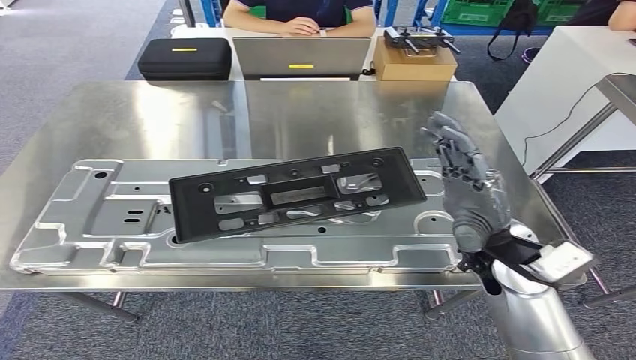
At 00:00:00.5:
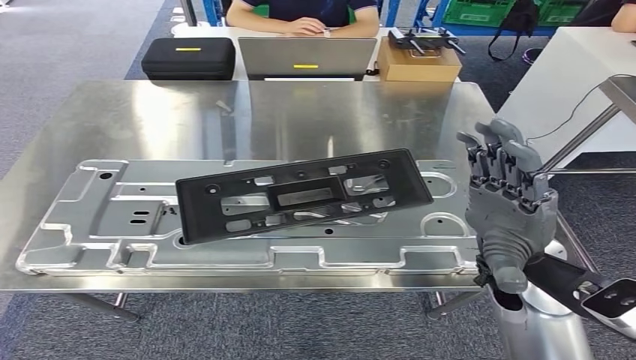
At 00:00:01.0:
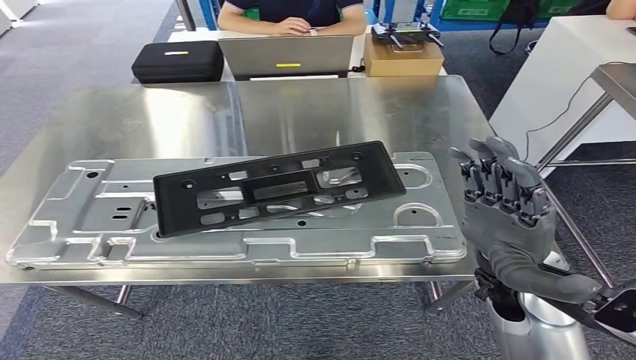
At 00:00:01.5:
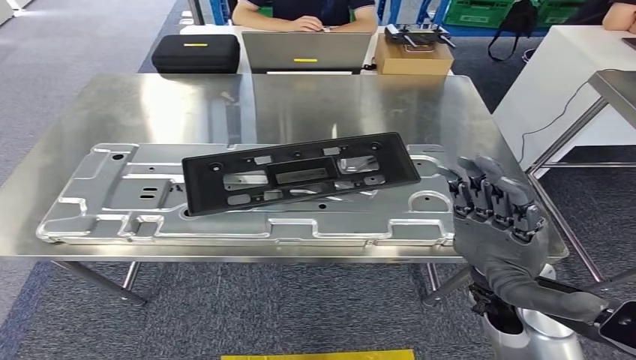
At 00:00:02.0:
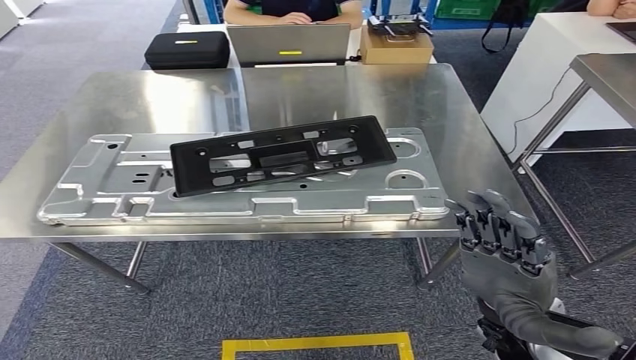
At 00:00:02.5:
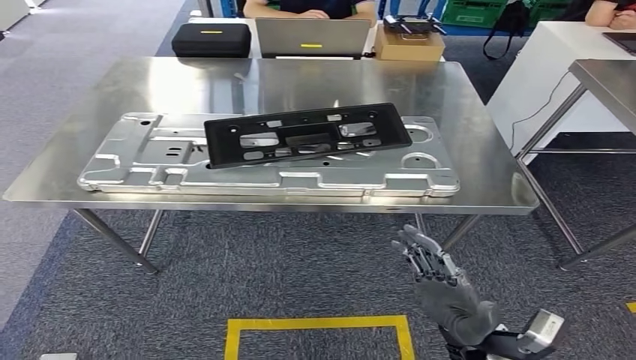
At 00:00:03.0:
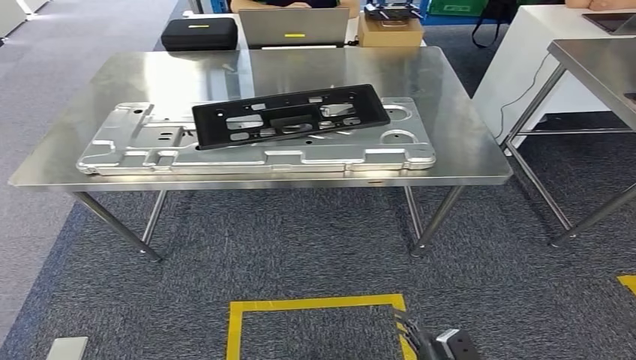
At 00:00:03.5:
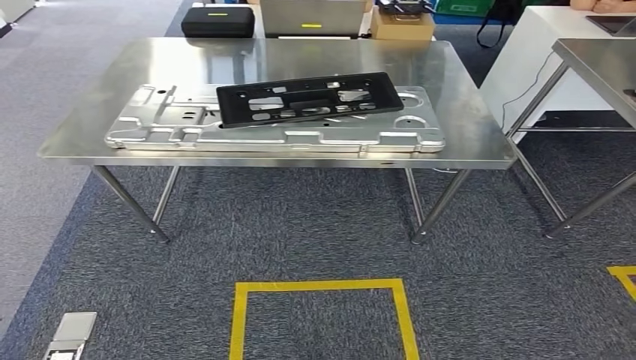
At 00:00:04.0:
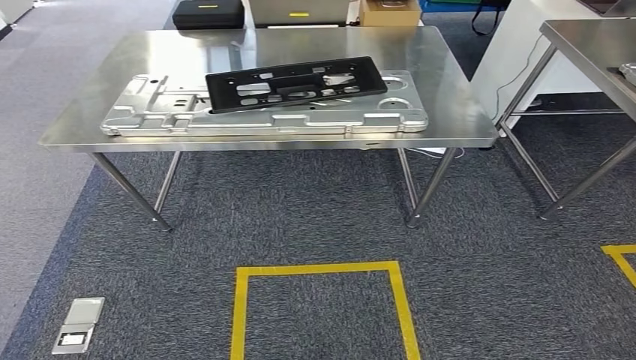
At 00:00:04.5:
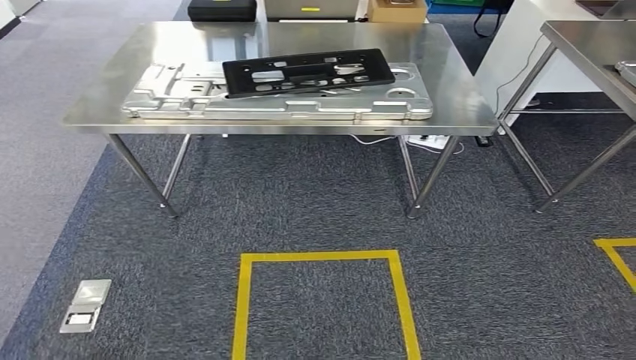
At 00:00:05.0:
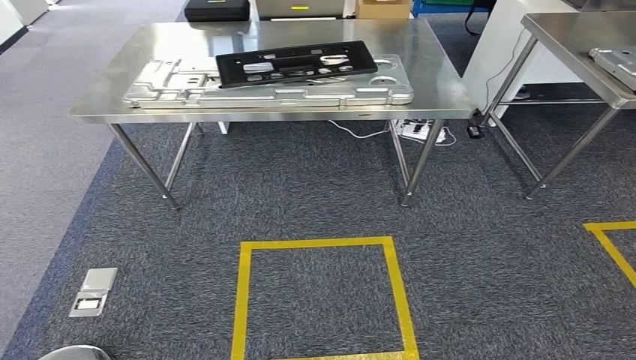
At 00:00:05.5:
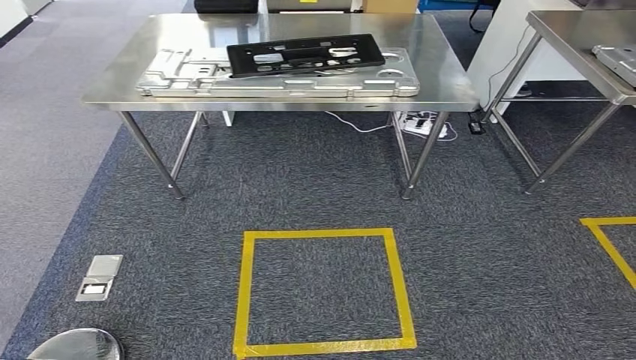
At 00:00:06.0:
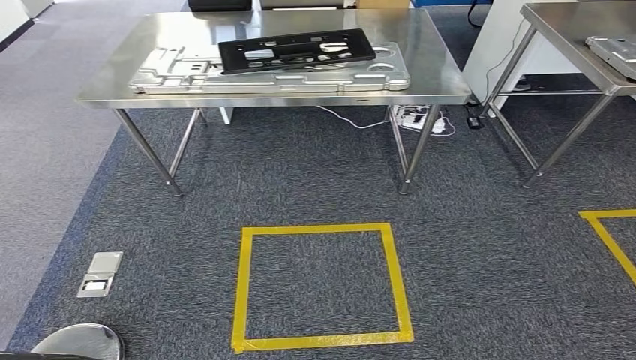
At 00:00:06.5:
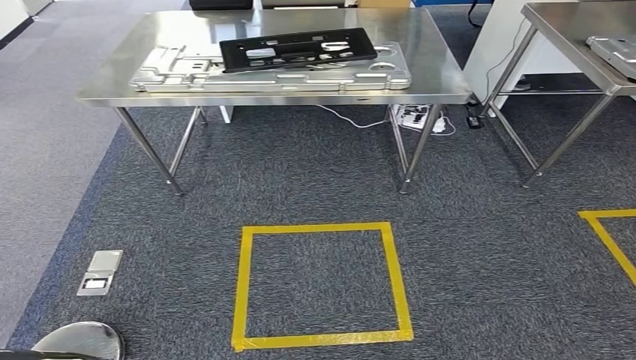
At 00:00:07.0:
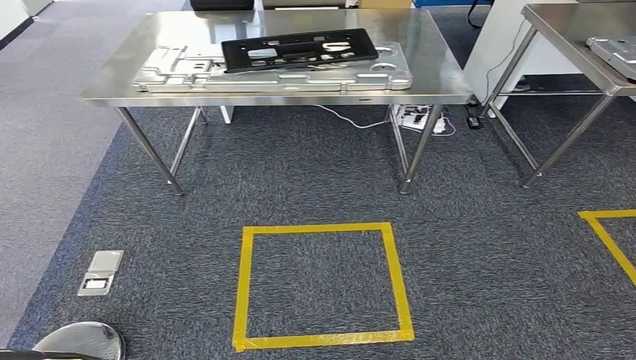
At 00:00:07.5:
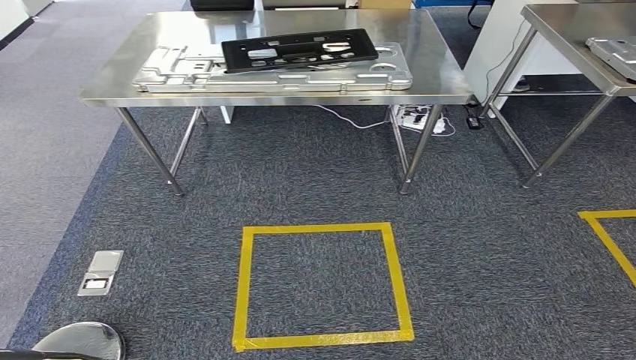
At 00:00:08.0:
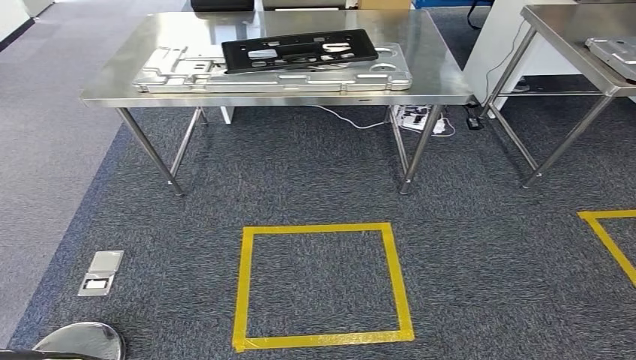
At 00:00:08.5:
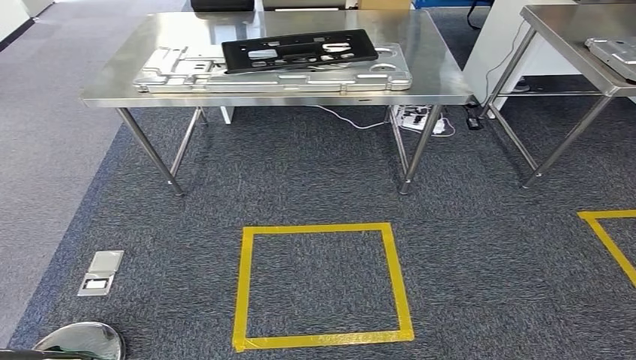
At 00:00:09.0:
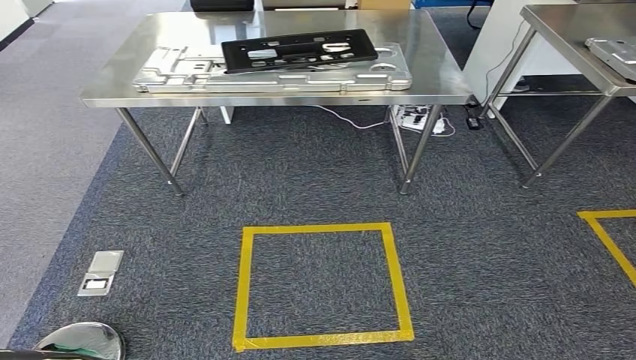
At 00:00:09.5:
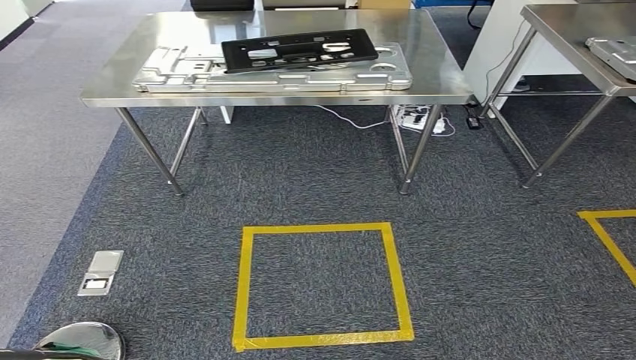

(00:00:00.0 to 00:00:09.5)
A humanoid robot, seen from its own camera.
Step, 00:00:00.5 - 00:00:09.5: Return to the initial position at the workbench.

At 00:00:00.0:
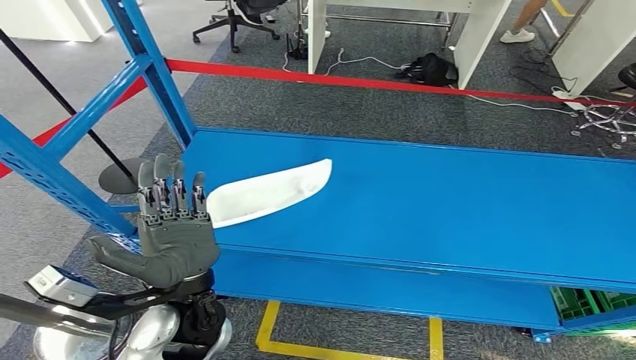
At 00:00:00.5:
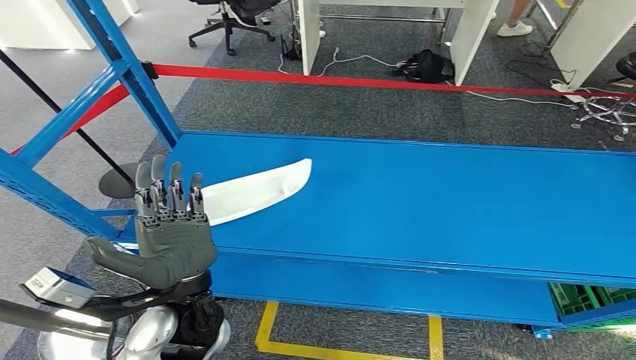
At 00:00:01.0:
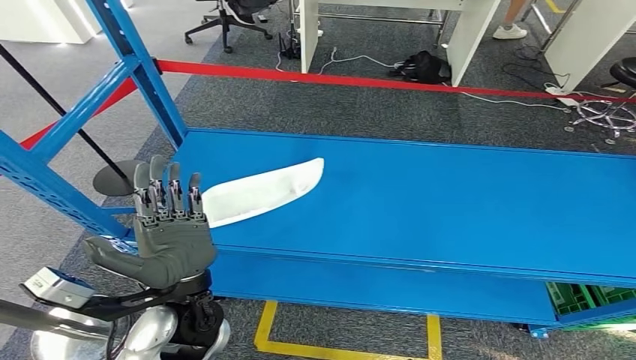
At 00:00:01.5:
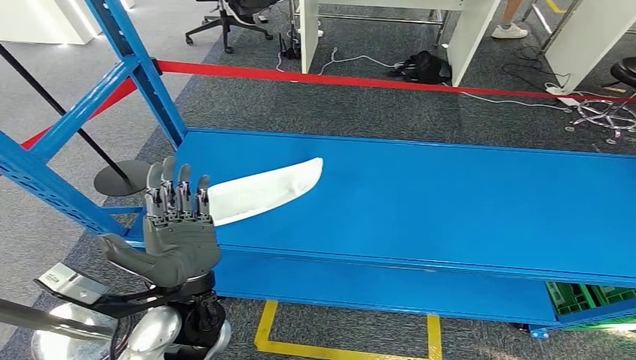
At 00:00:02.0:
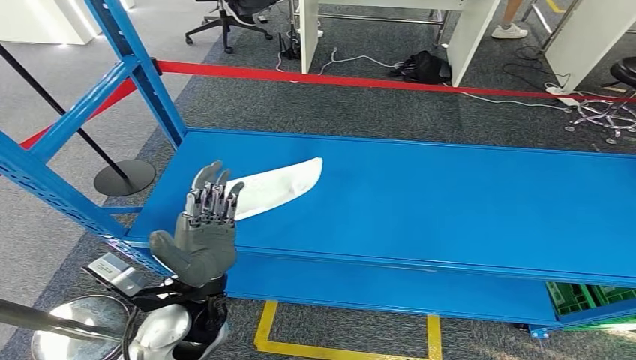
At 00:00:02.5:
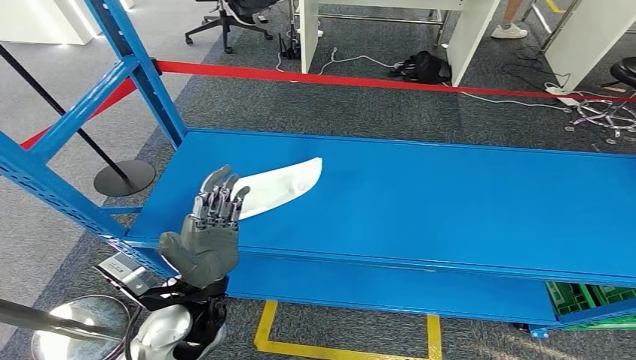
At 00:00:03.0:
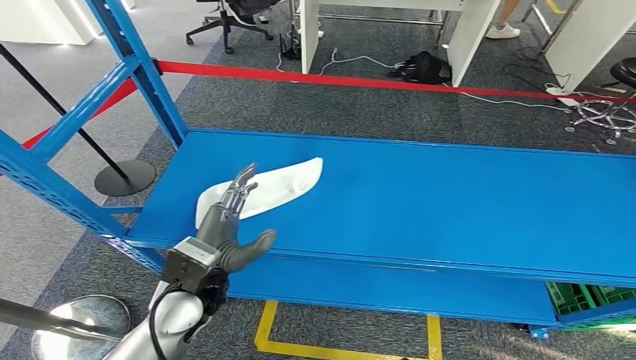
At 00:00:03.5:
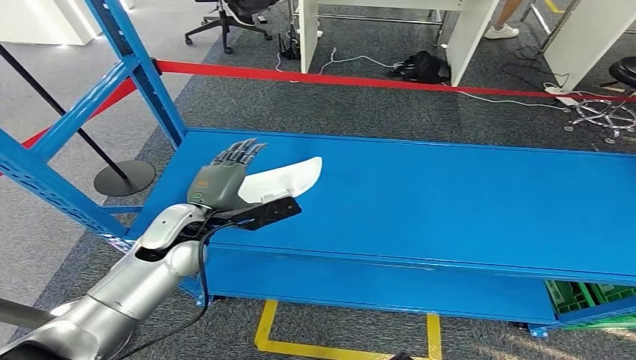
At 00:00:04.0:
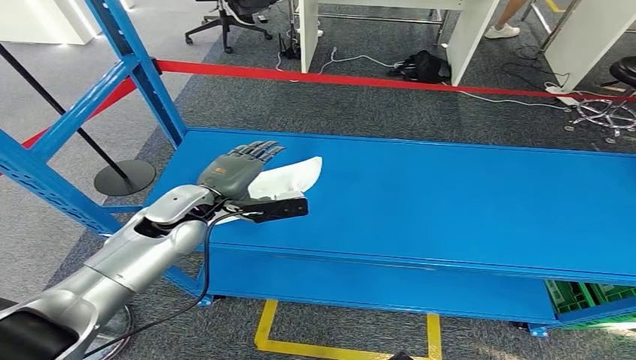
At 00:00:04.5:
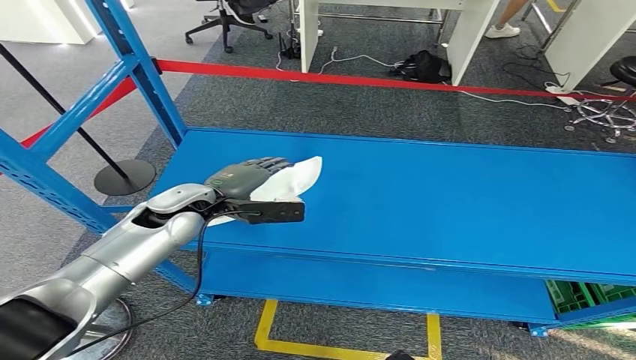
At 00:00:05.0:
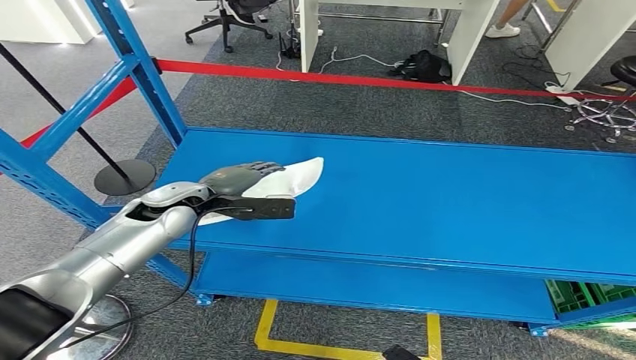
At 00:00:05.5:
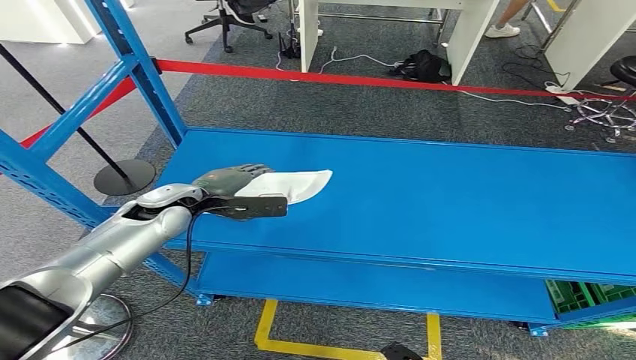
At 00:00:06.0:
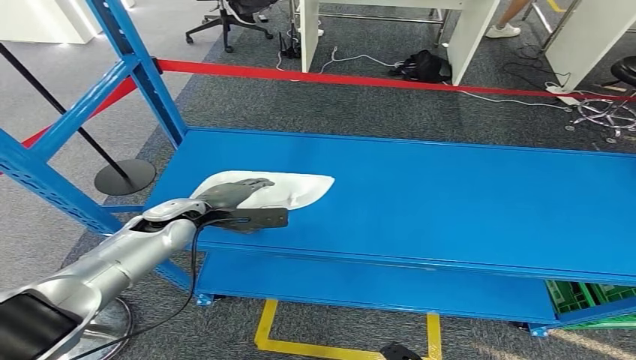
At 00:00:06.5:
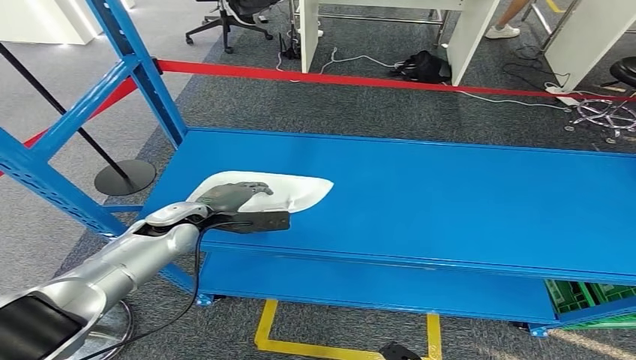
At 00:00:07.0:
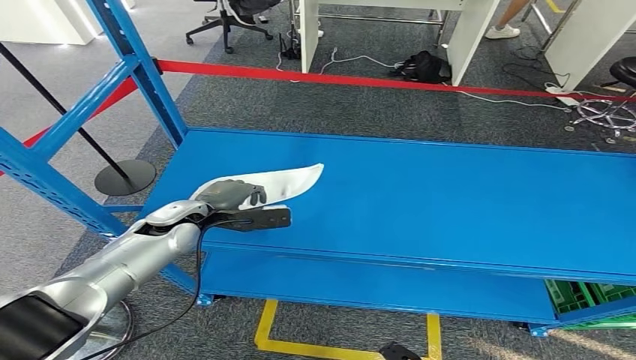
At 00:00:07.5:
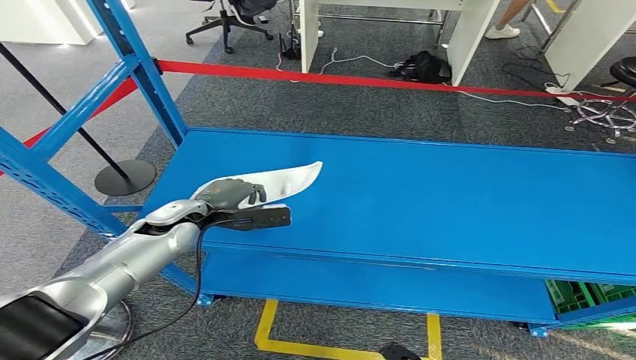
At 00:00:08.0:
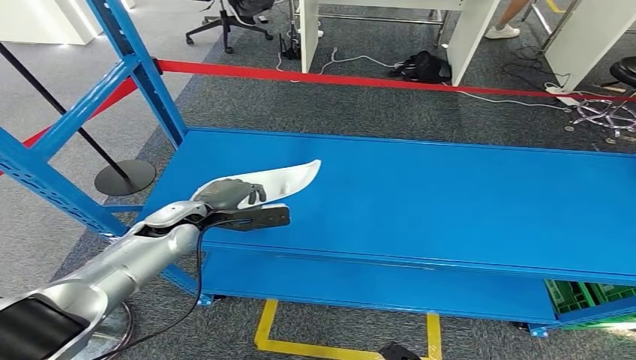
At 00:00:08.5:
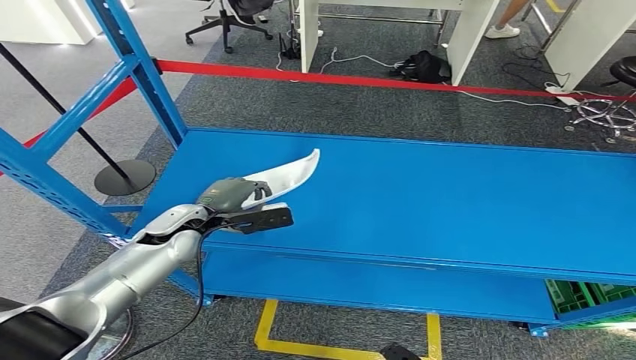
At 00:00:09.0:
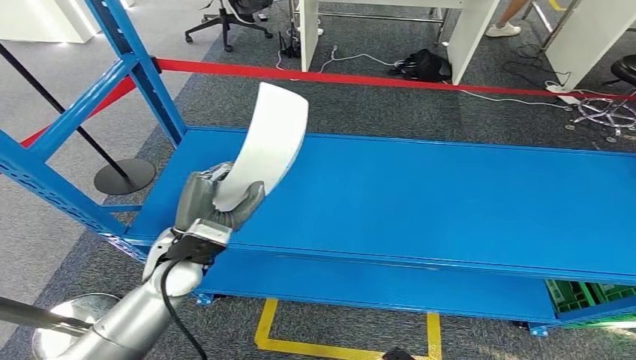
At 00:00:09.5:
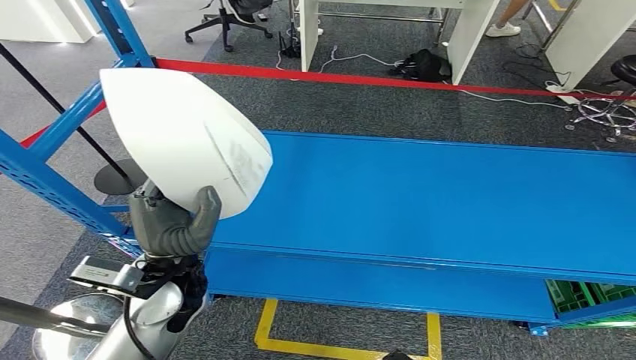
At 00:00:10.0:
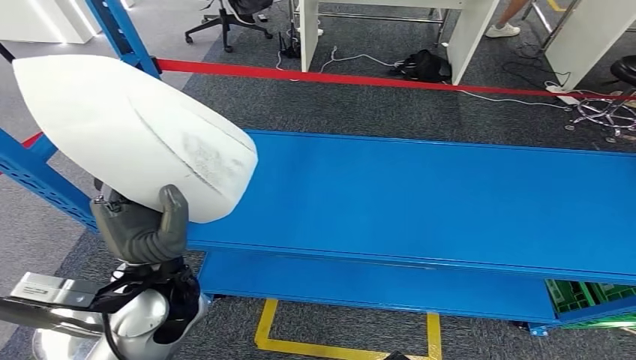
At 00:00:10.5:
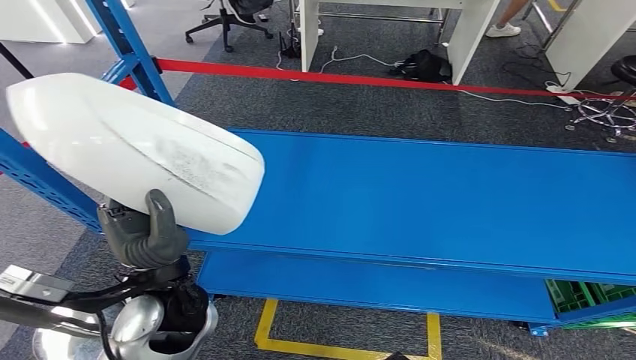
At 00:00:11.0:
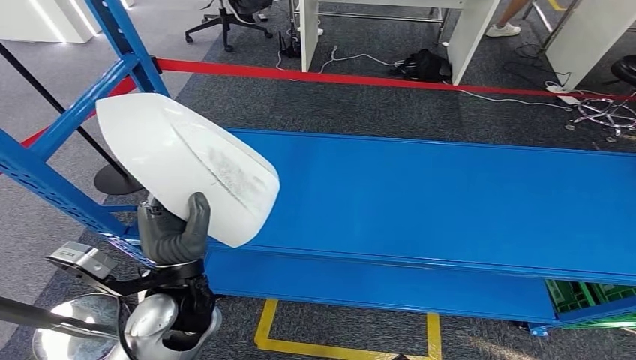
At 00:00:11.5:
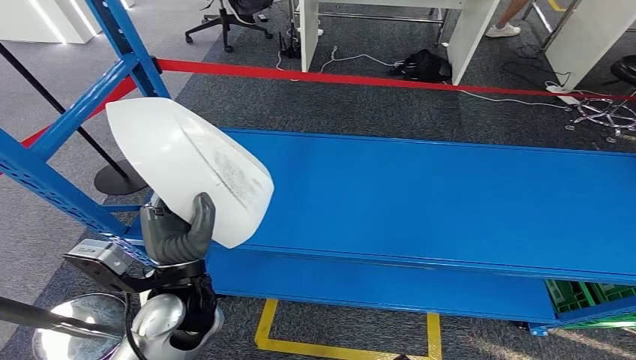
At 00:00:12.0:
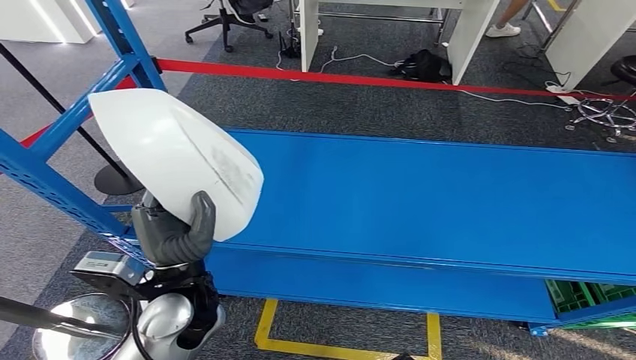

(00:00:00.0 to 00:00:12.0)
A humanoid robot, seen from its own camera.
Step, 00:00:00.0 - 00:00:09.0: Pick up the small component from the shelf.
00:00:02.0 - 00:00:04.0: The left hand travels forward by roughly 15 cm.
00:00:04.0 - 00:00:06.0: The left hand goes some 5 cm downward.
00:00:06.0 - 00:00:08.0: The hands stay close to where they were, moving slightly.
